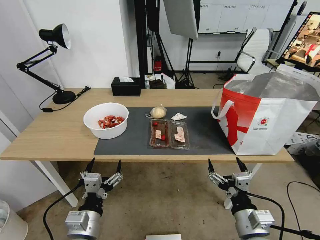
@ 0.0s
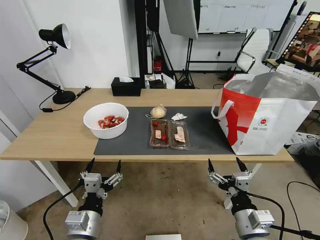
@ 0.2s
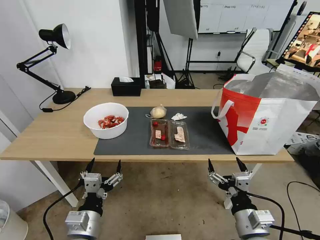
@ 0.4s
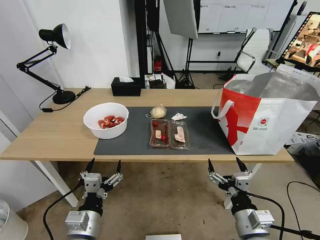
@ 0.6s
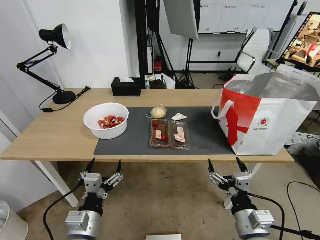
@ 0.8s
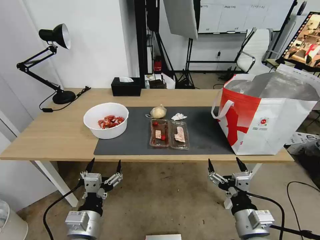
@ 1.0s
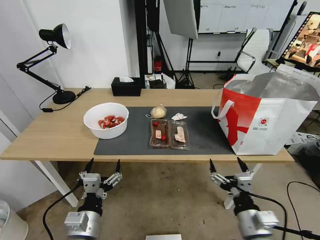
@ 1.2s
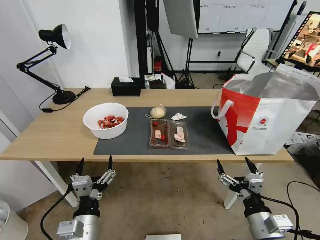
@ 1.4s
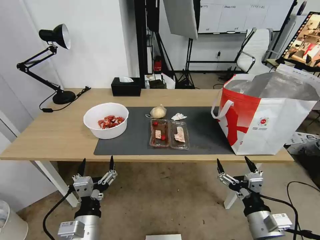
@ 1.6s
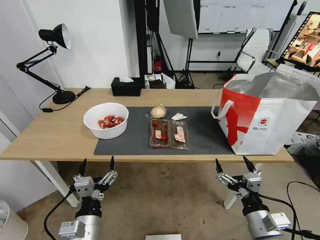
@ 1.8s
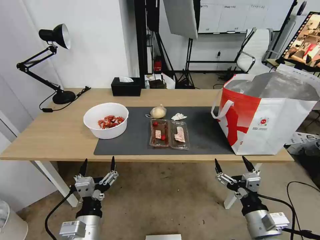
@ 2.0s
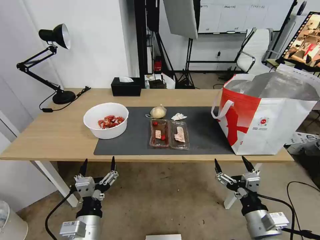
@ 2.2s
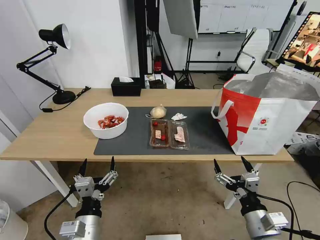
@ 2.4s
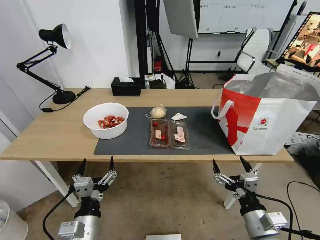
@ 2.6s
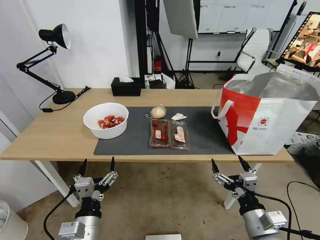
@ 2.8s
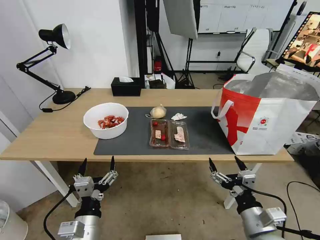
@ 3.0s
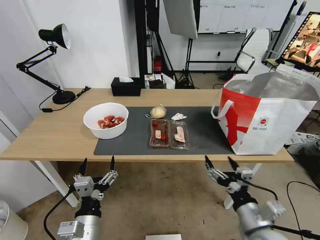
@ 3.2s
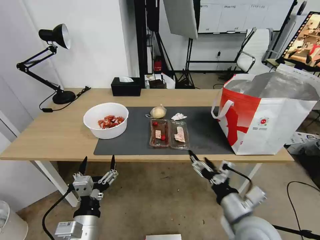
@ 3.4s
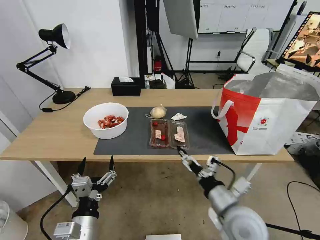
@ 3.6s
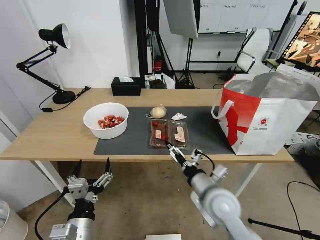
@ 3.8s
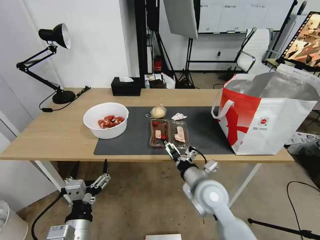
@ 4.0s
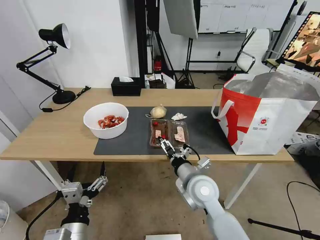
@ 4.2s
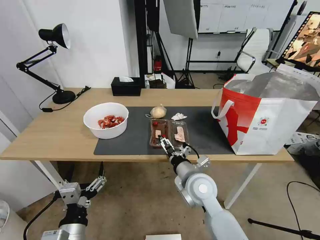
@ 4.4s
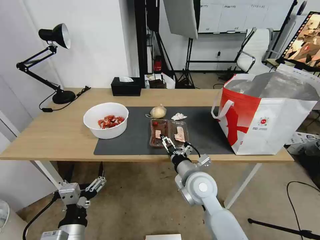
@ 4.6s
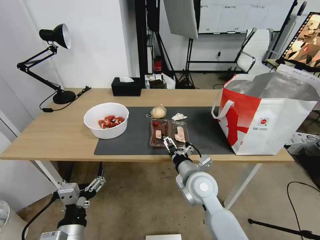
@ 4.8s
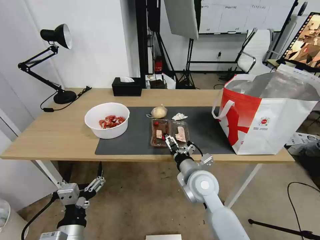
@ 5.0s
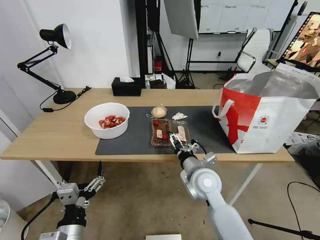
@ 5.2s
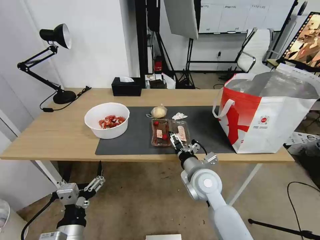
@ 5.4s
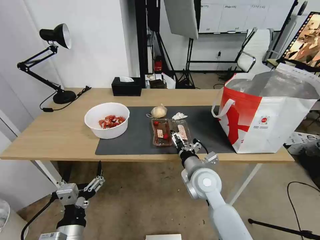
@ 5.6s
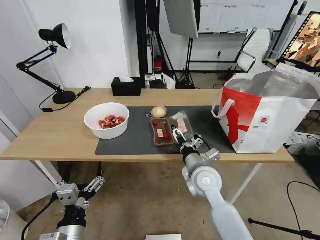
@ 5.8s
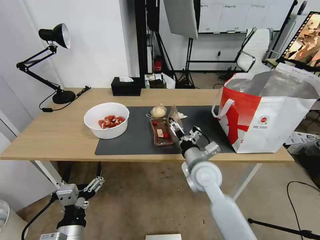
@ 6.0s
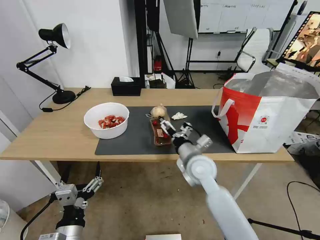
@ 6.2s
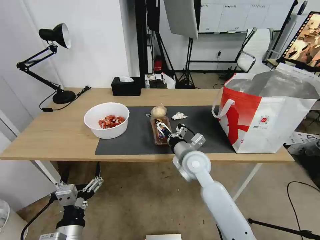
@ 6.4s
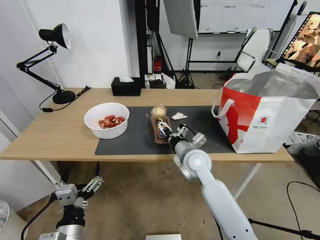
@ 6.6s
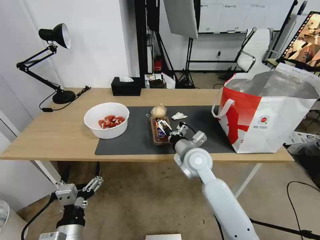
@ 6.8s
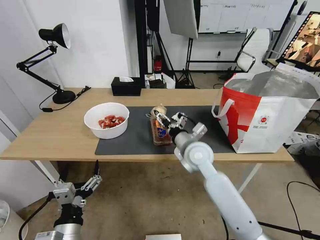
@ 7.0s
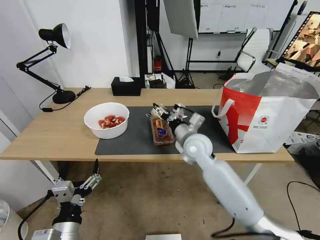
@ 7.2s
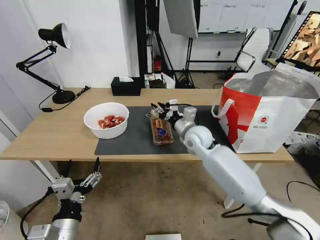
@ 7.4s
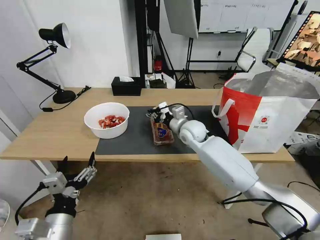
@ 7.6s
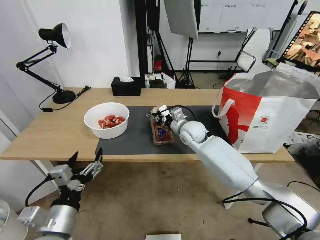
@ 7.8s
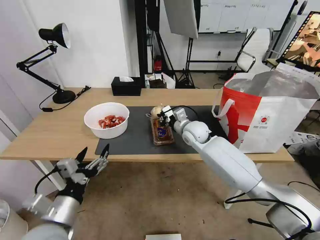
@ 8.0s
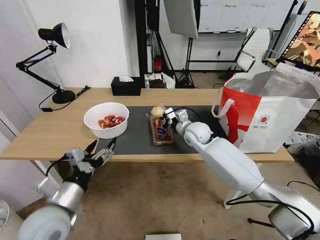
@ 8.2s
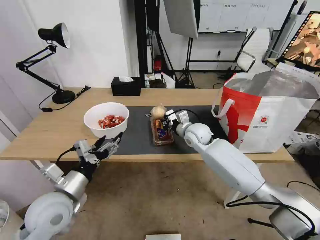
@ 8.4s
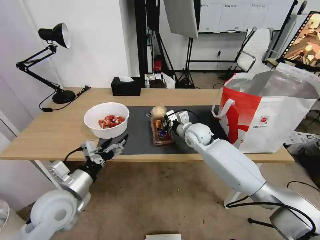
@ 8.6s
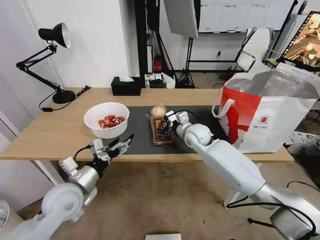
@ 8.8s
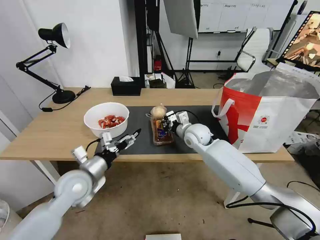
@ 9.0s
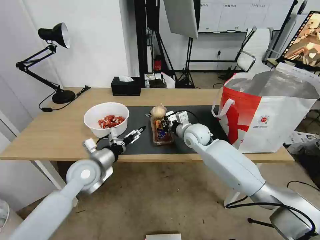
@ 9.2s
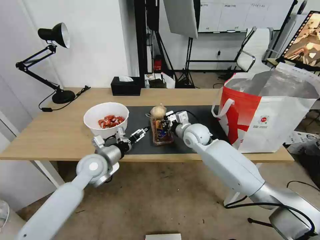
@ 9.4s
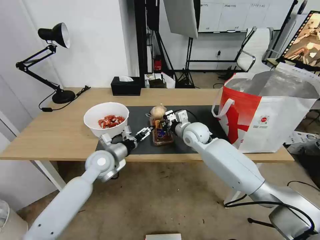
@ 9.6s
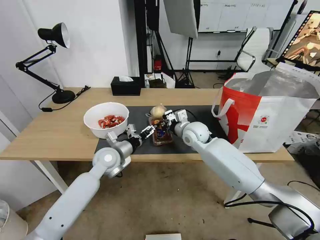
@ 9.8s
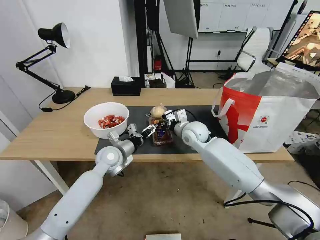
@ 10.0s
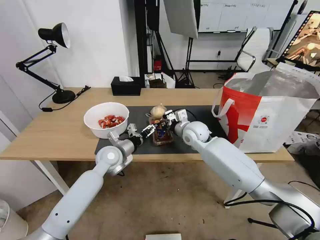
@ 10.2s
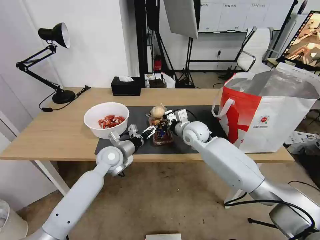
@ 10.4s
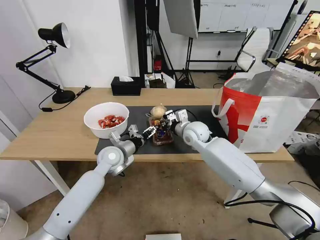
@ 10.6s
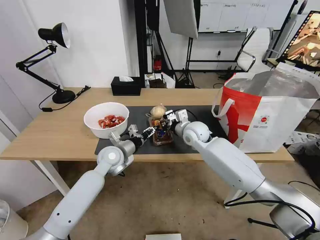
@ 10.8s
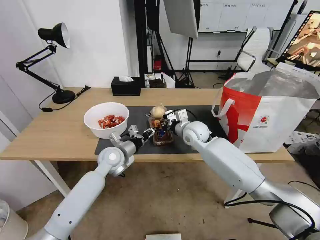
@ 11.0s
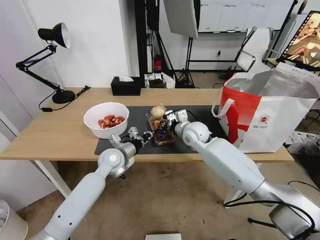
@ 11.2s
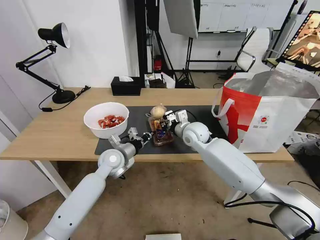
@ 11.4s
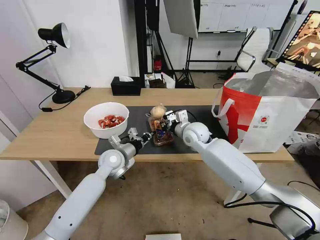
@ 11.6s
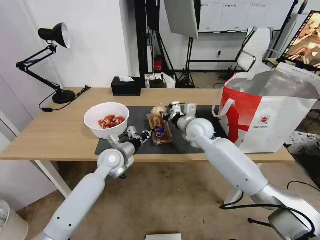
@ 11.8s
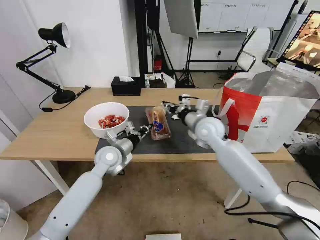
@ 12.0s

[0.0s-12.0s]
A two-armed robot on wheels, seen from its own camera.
Task of the whole recording: Pick up the trash from the table and place it into the takeout bag.
1.6s to 3.0s: The grippers move only a little.
3.0s to 4.4s: The right gripper goes some 20 cm forward and to the left.
4.4s to 6.0s: The grippers stay close to where they were, moving slightly.
6.0s to 7.6s: The right gripper is displaced forward by approximately 15 cm, and closes up.
7.6s to 9.0s: The left gripper heads forward, covering some 20 cm.
9.0s to 10.4s: The left gripper travels forward and to the right by some 15 cm.
10.4s to 12.0s: The right gripper heads upward, covering some 5 cm. Meanwhile the left gripper closes up.

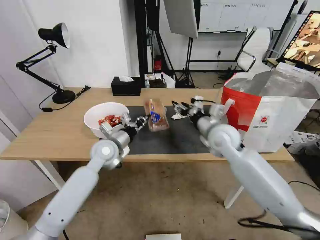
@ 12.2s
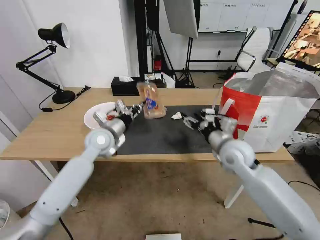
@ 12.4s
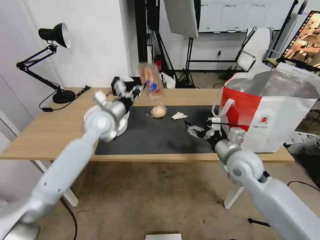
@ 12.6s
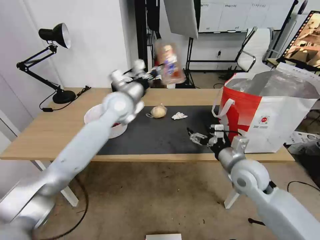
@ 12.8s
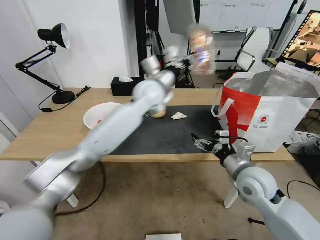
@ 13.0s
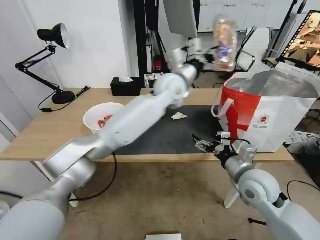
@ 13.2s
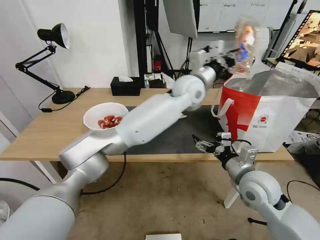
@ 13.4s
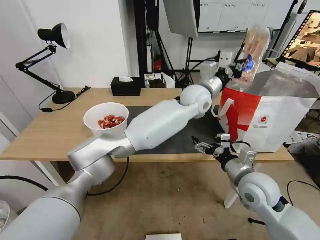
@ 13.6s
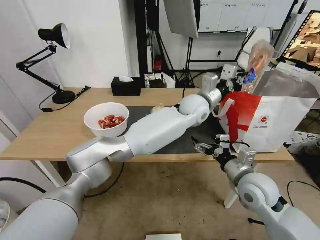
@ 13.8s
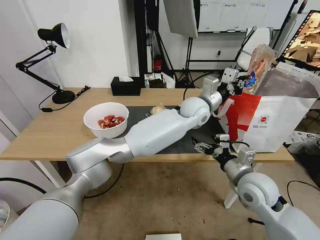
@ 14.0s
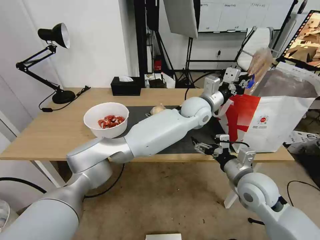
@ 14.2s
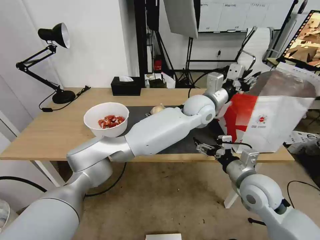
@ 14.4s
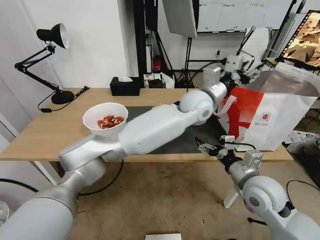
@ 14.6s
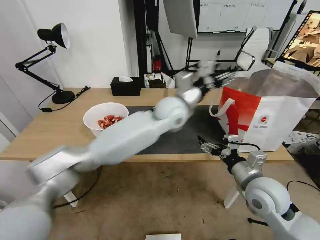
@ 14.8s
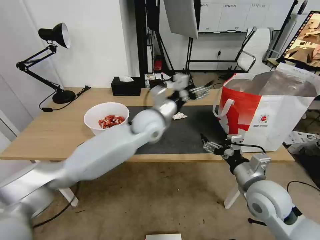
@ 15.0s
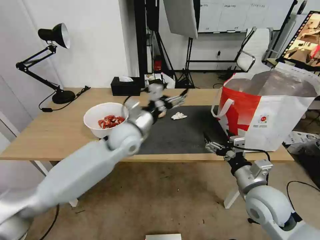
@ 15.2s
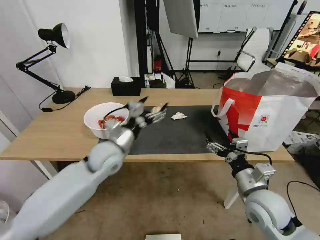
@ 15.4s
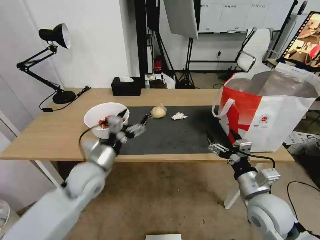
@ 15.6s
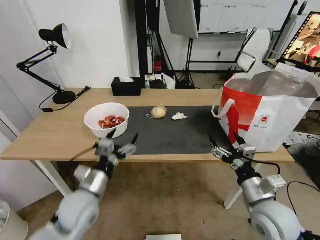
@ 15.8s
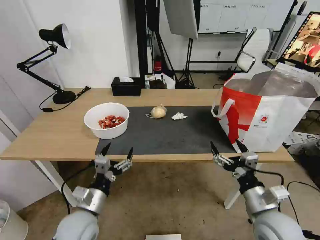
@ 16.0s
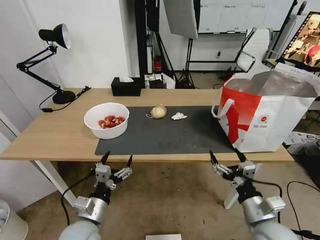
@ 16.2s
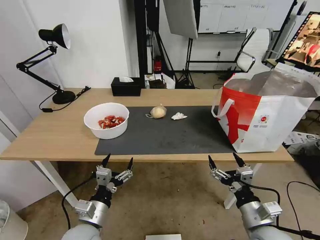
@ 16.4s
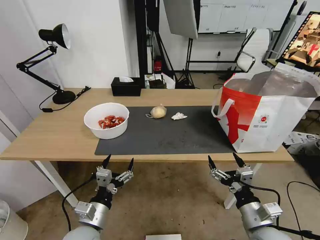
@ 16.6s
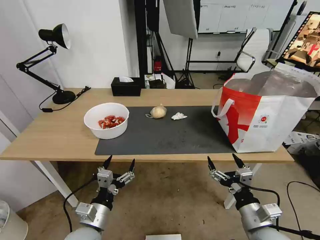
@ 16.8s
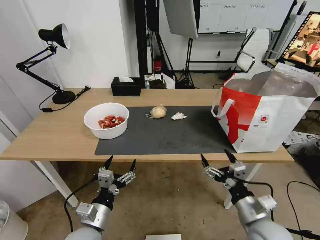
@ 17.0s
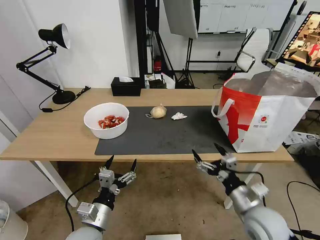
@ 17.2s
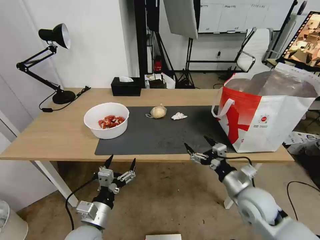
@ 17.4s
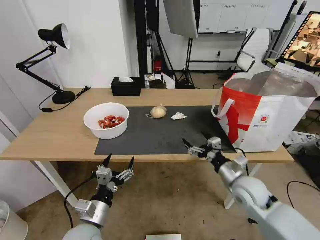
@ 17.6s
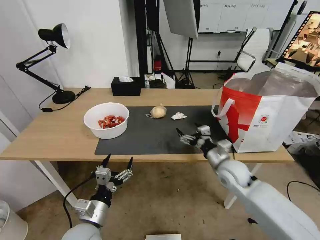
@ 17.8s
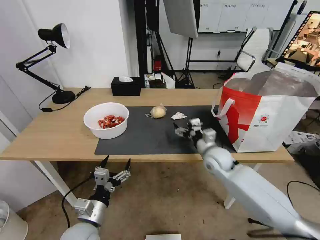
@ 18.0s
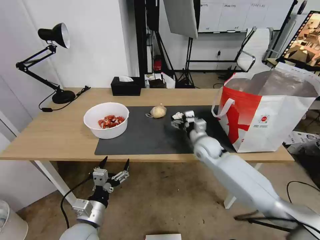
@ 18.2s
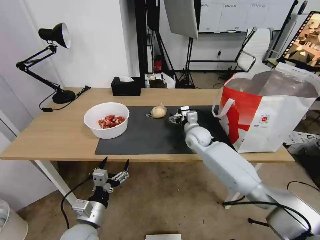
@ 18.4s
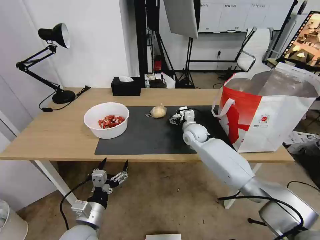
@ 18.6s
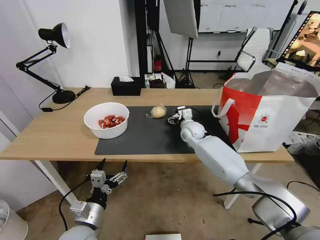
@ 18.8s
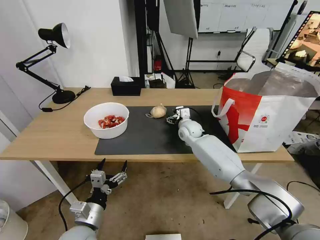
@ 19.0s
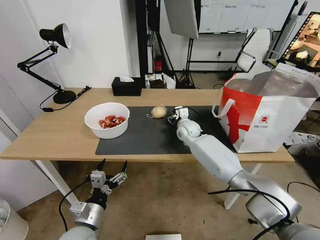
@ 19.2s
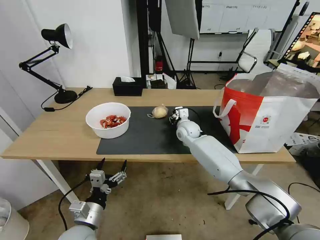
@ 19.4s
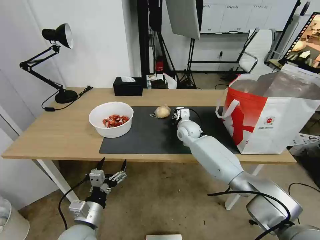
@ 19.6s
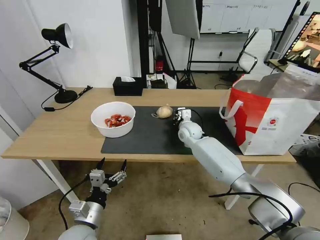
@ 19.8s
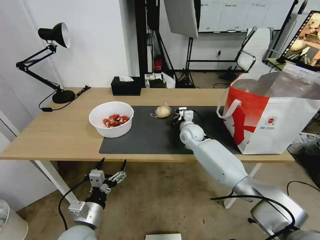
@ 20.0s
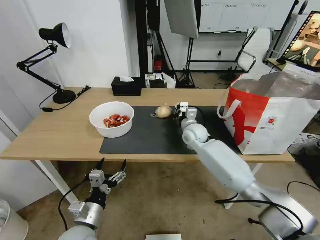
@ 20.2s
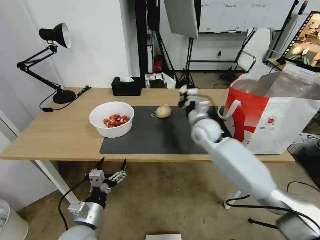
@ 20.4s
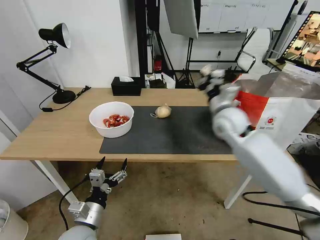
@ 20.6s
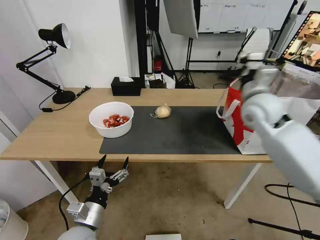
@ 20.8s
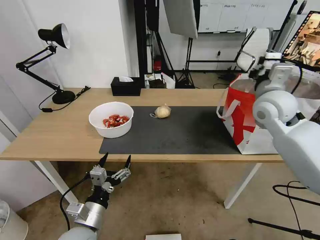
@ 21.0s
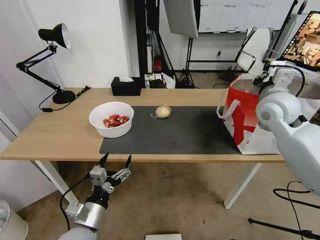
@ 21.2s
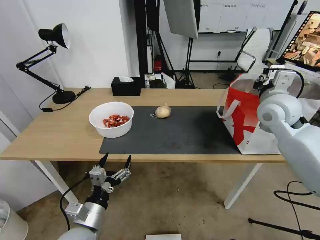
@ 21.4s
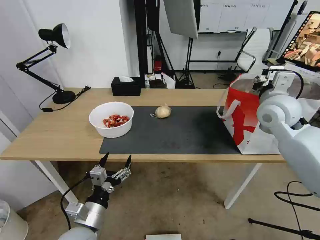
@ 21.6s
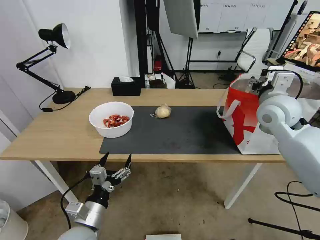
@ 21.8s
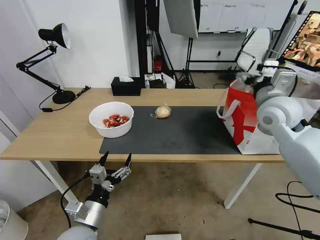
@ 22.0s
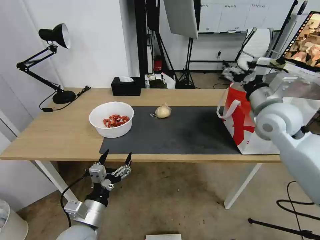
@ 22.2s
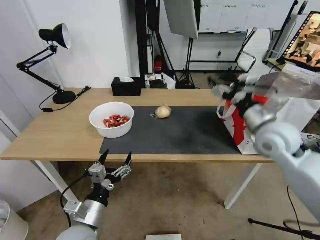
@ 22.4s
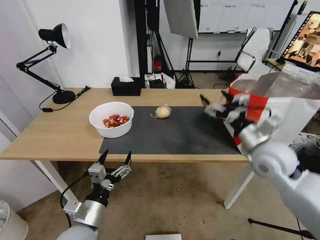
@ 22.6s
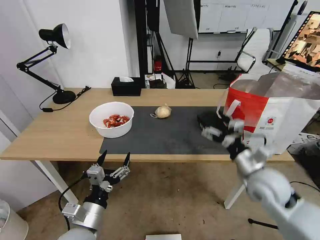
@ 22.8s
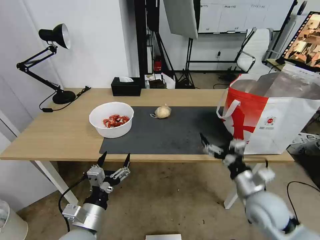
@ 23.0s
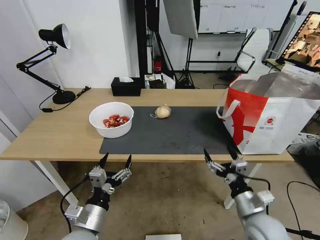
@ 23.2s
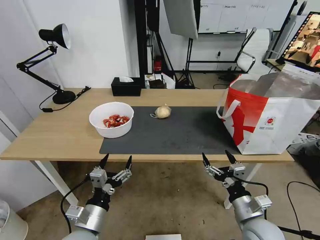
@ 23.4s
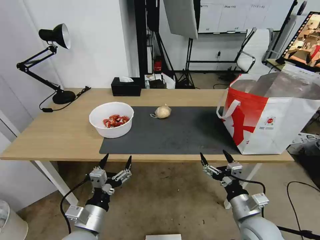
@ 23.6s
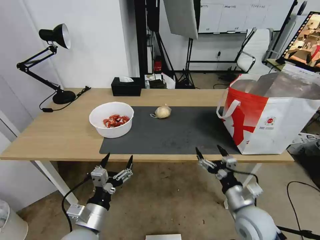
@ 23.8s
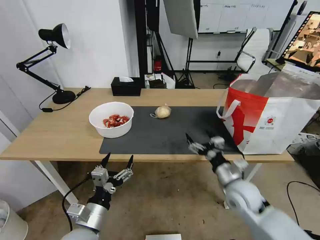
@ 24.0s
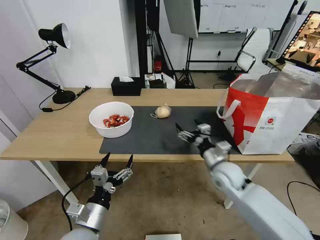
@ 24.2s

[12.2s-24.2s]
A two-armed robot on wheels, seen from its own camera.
Task of the whole recording: Pick up the trash from the table and place it into the takeout bag.
12.2s to 13.8s: The right gripper shifts some 15 cm backward and to the right, and opens up. The left gripper shifts some 30 cm to the right.
13.8s to 15.2s: The left gripper shifts roughly 25 cm to the left and backward, and opens up.
15.2s to 16.6s: The left gripper is displaced backward, downward and to the left by roughly 30 cm; the right gripper goes approximately 10 cm backward and downward.
16.6s to 18.2s: The right gripper is displaced forward by about 30 cm.
18.2s to 19.8s: The right gripper goes roughly 10 cm forward, and closes up.
19.8s to 21.2s: The right gripper travels upward, to the right and backward by about 30 cm.
21.2s to 22.6s: The right gripper is displaced backward and downward by some 15 cm, and opens its fingers.
22.6s to 24.2s: The right gripper moves downward and to the left, some 15 cm, and goes backward and returns, about 15 cm each way.
